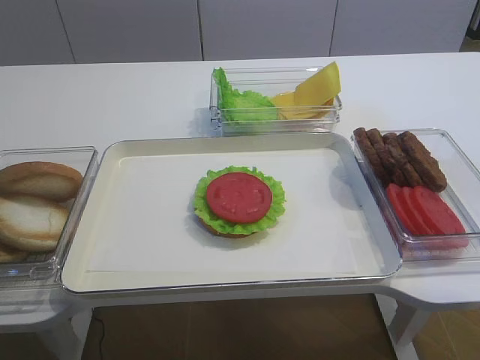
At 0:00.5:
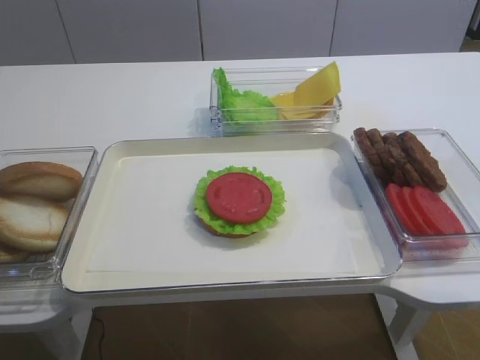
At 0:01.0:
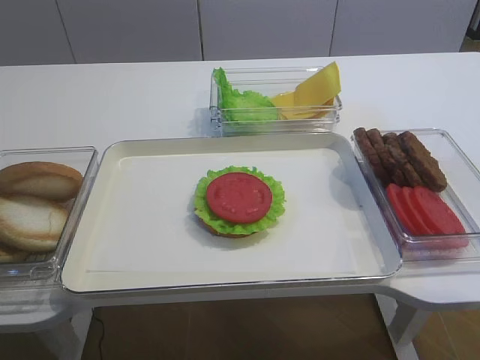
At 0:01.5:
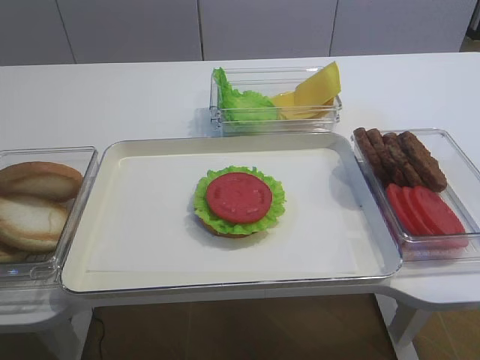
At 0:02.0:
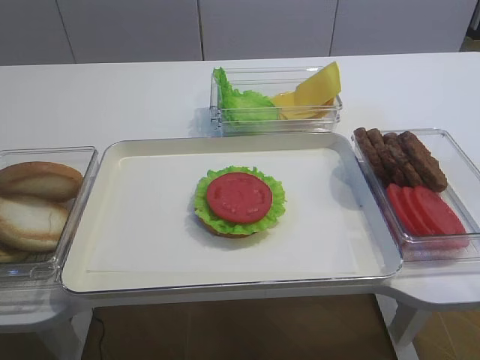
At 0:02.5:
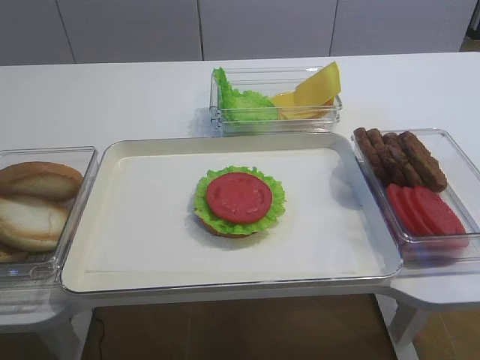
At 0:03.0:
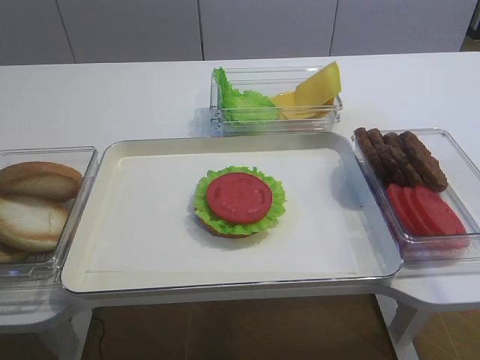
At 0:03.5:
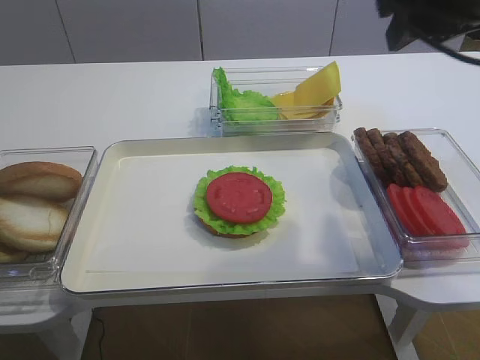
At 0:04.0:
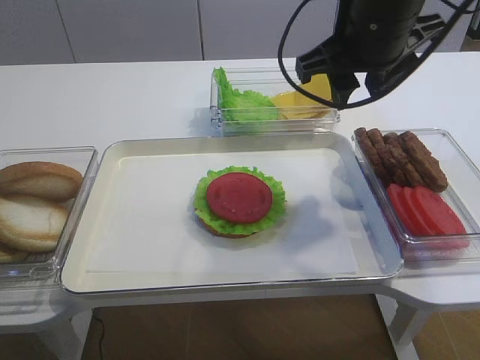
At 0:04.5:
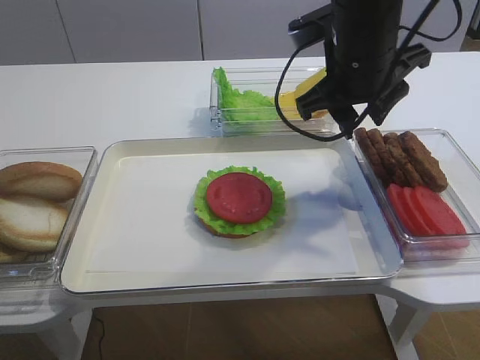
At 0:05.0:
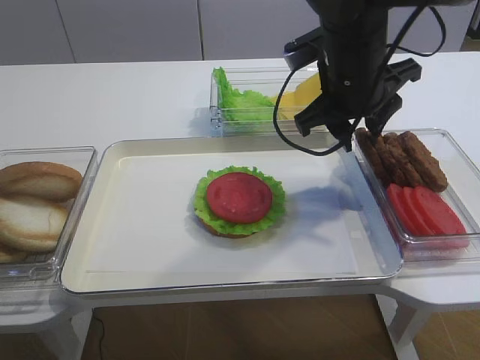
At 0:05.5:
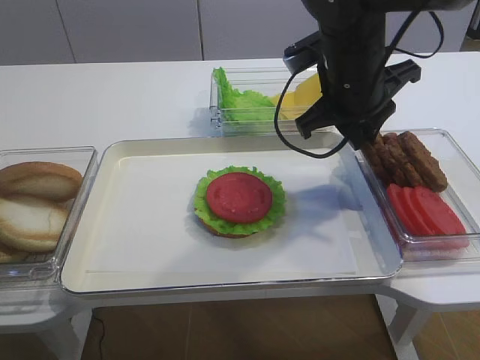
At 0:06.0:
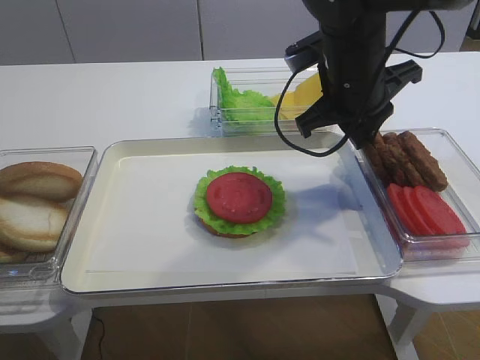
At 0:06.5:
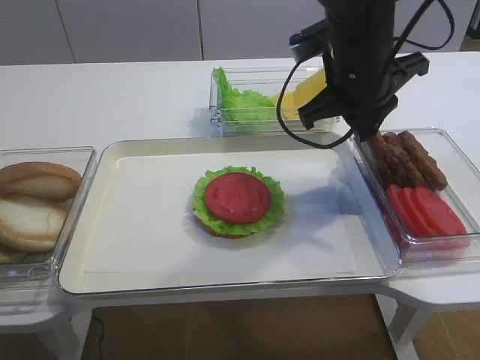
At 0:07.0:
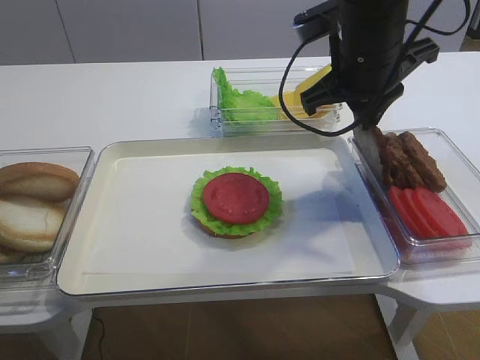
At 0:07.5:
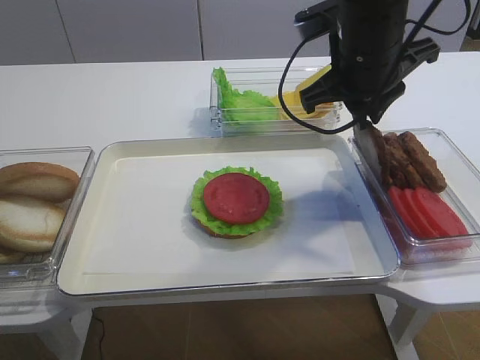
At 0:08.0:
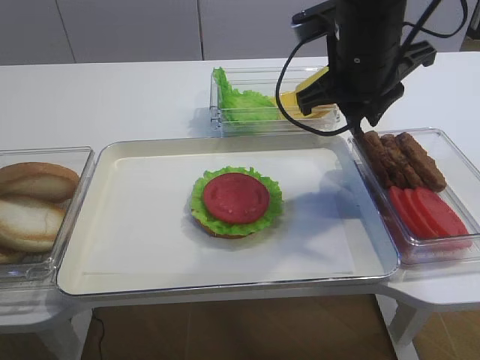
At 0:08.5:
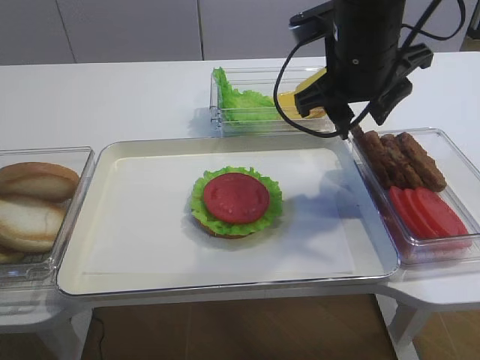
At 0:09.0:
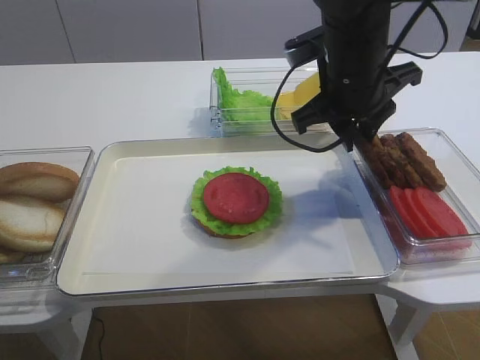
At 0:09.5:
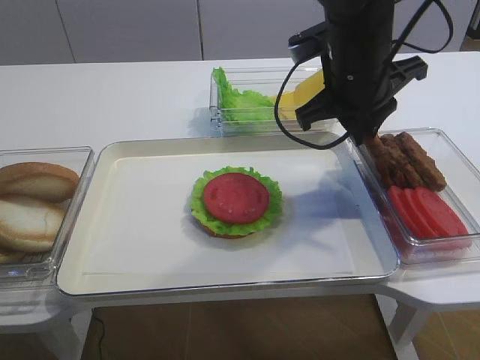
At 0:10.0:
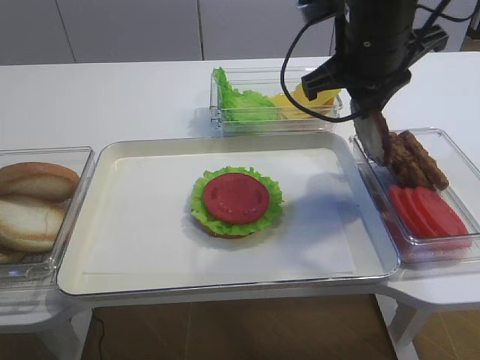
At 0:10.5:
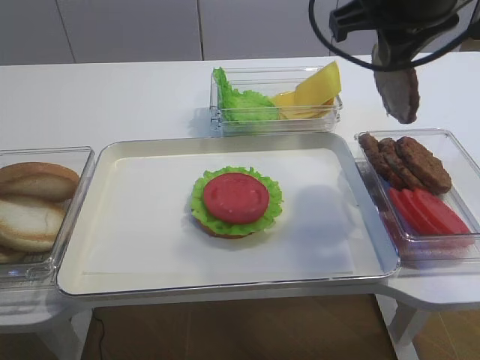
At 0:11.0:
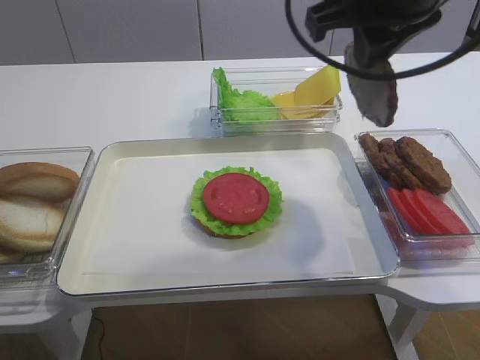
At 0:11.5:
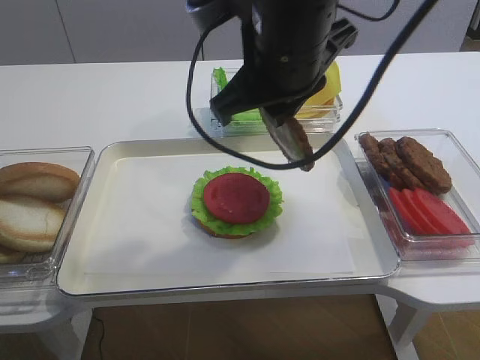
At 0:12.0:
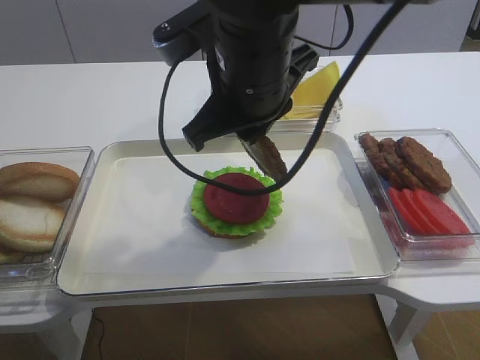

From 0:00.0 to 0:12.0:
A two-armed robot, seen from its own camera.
Step, from 0:00.0 to 0:10.0: Pick up the cutlet with the right gripper.
From 0:02.0 to 0:04.0: The right gripper is displaced forward and to the left by some 35 cm.
From 0:04.0 to 0:06.0: The right gripper moves downward, roughly 5 cm, and closes.
From 0:06.0 to 0:08.0: There are only small adjustments of the grippers.
From 0:08.0 to 0:10.0: The right gripper opens and closes again.
From 0:10.0 to 0:12.0: The right gripper heads to the left and backward, covering some 10 cm.

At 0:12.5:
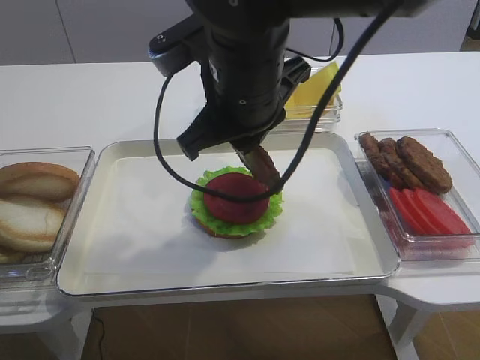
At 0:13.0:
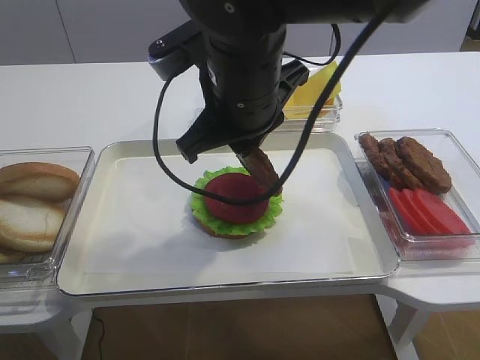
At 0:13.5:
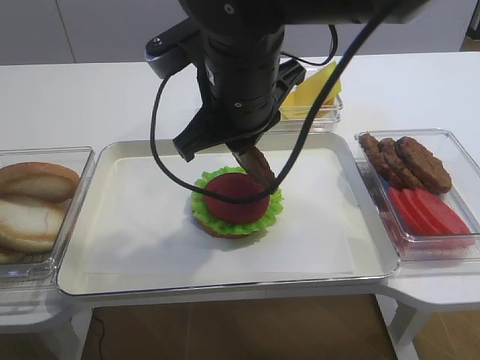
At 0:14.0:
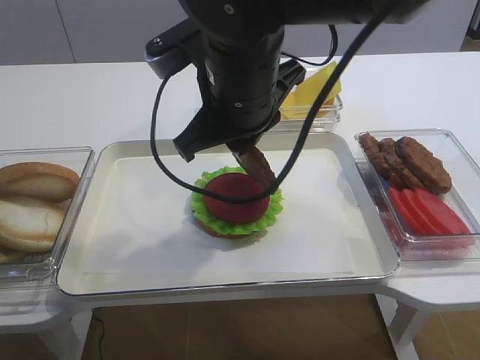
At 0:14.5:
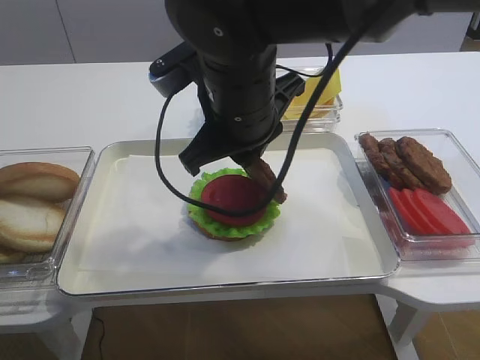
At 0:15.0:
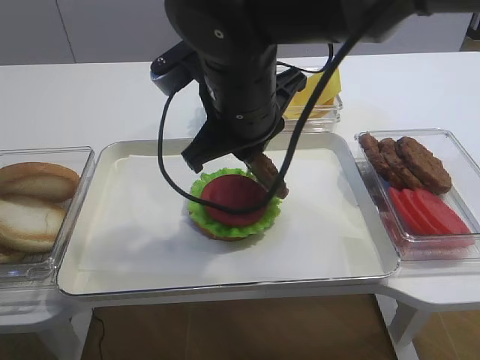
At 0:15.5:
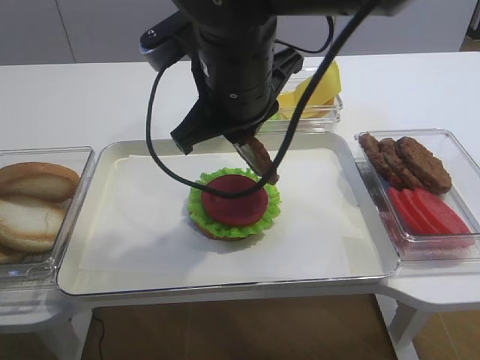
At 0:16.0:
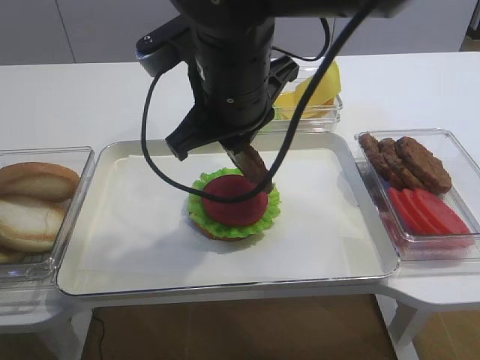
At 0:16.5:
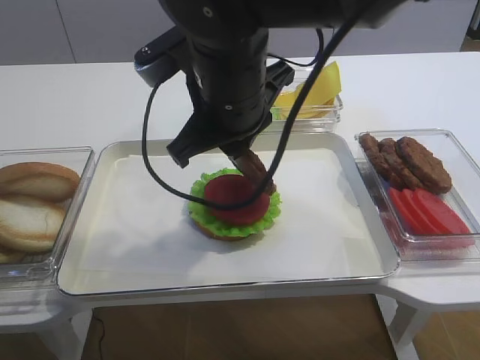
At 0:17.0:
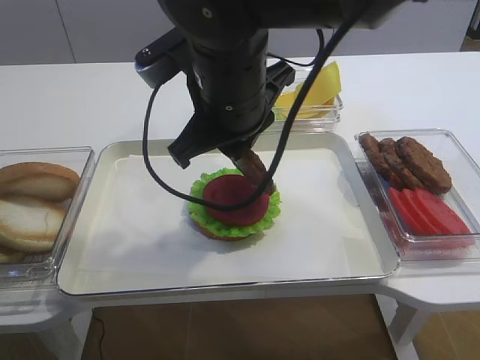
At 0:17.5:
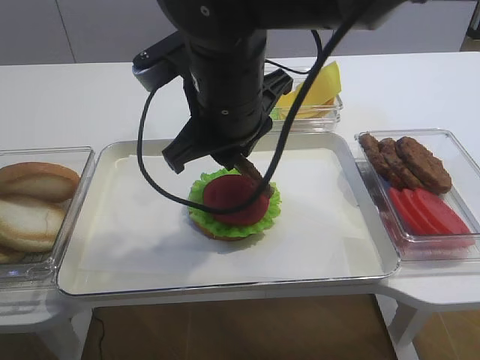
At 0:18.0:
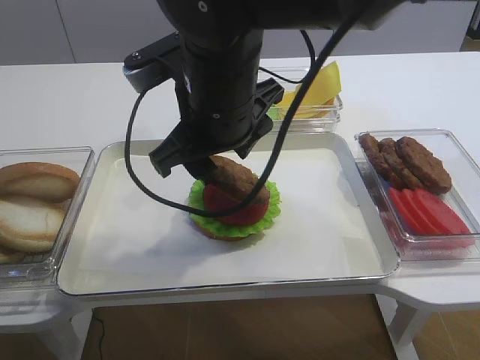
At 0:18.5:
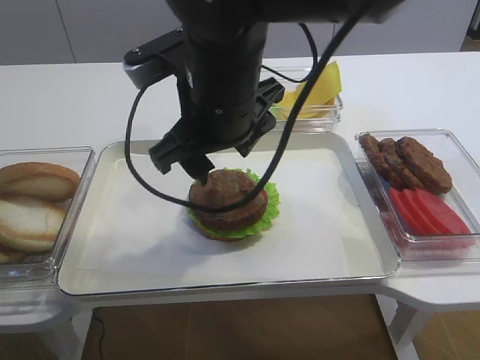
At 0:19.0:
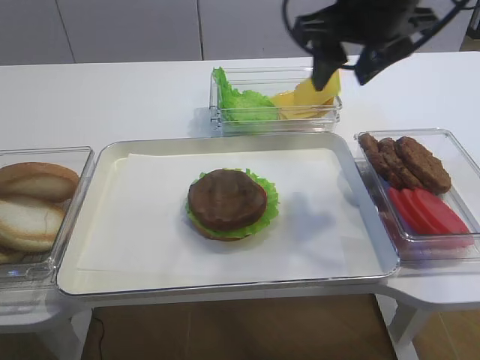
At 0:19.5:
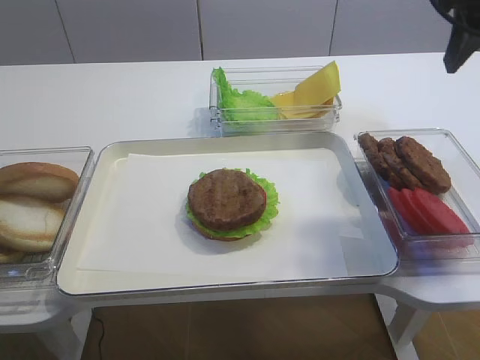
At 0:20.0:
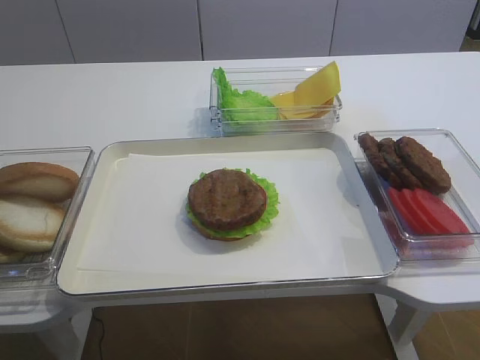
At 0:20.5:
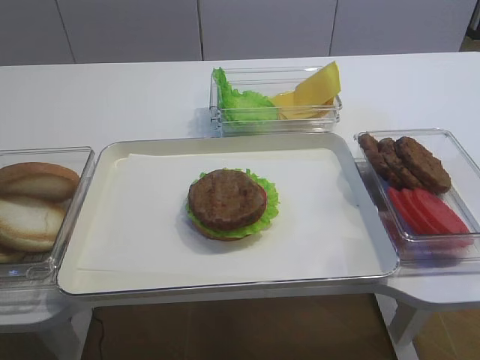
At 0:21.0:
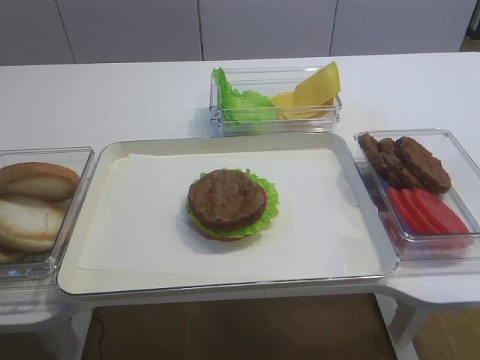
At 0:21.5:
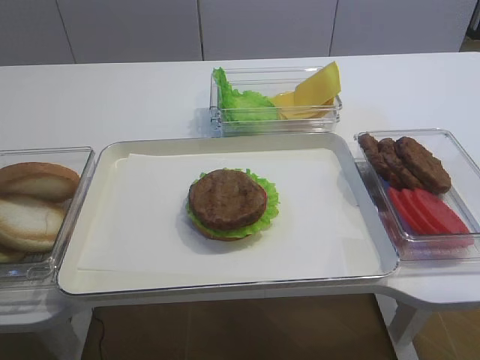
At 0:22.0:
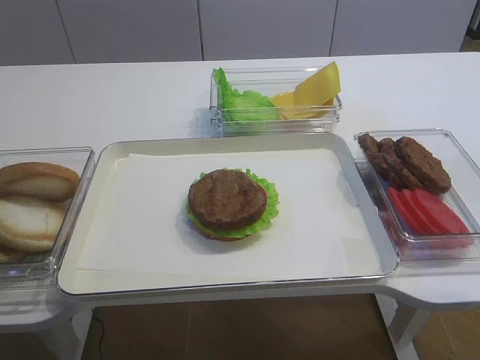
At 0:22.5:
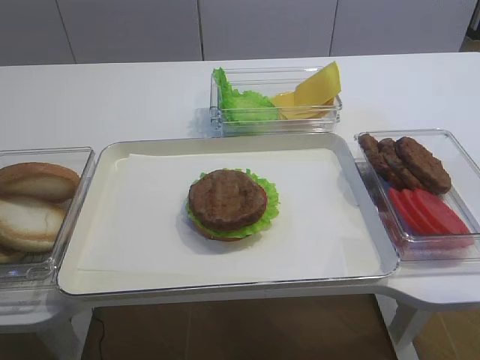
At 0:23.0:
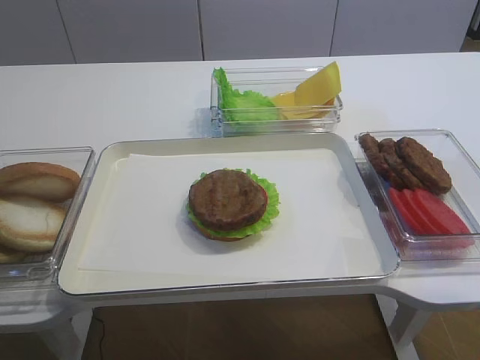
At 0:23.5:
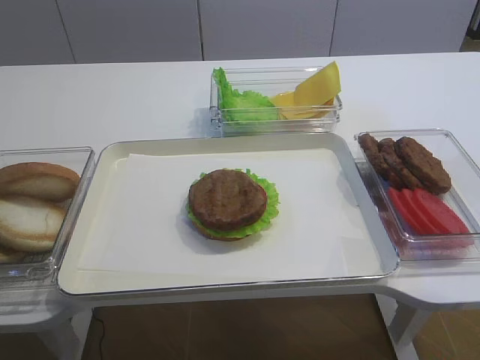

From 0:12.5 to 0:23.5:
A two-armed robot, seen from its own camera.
Step, from 0:12.5 to 0:18.0: Place the cutlet on the tomato slice with the right gripper.
From 0:12.5 to 0:16.0: The grippers make only small movements.
From 0:16.0 to 0:18.0: The right gripper opens.
From 0:18.0 to 0:20.0: The right gripper goes roughly 30 cm to the right and upward.

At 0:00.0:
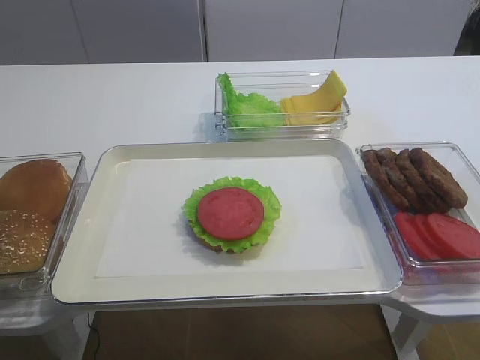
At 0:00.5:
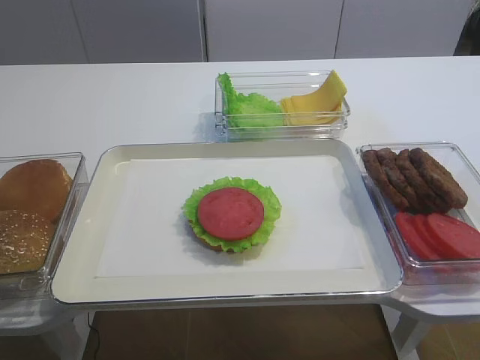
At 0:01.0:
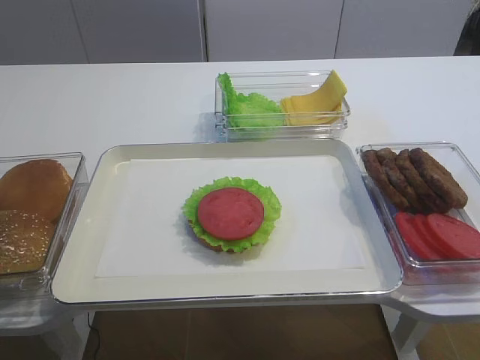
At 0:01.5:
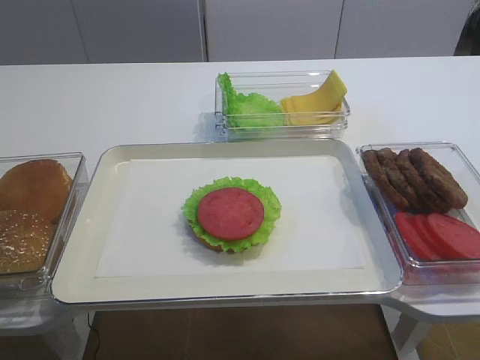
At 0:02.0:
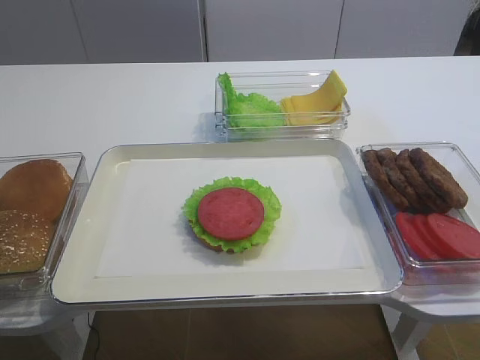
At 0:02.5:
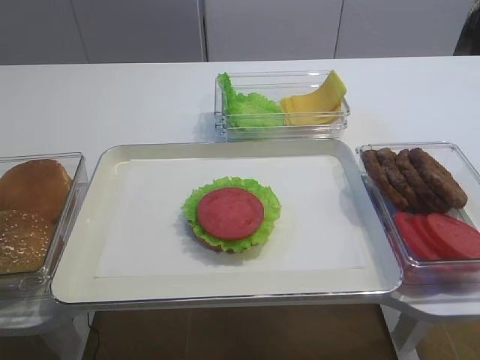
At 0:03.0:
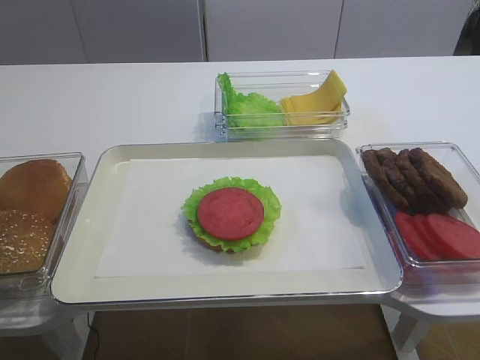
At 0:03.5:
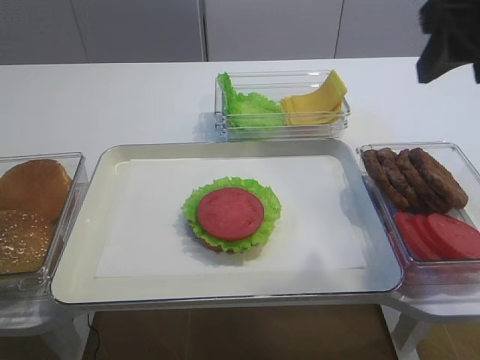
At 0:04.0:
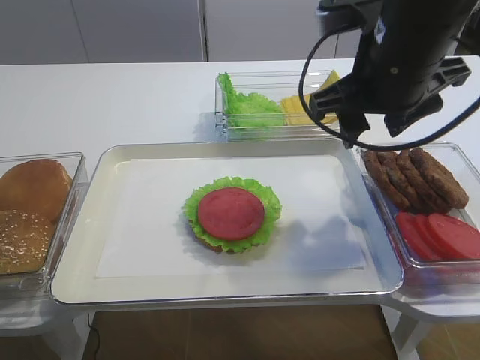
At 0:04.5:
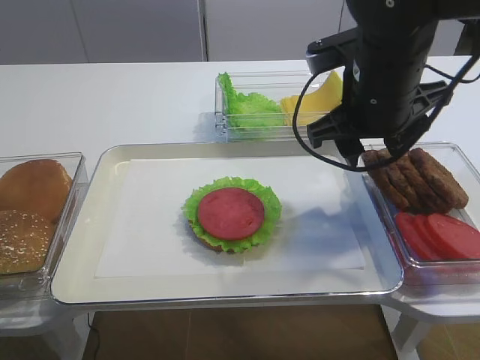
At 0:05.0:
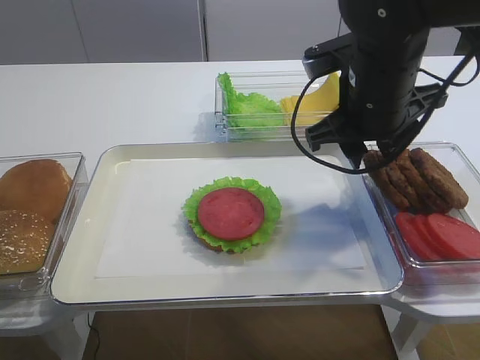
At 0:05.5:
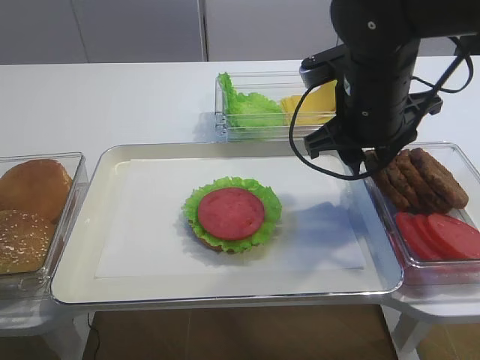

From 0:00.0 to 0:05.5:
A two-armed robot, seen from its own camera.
From 0:02.0 to 0:03.5: The right gripper moves forward and upward, approximately 25 cm.
From 0:03.5 to 0:05.5: The right gripper shifts roughly 15 cm downward, to the left and forward.
